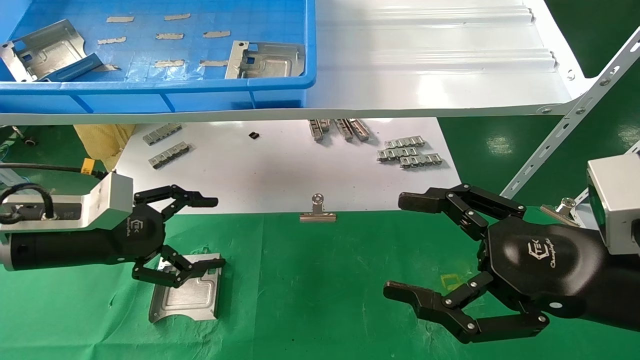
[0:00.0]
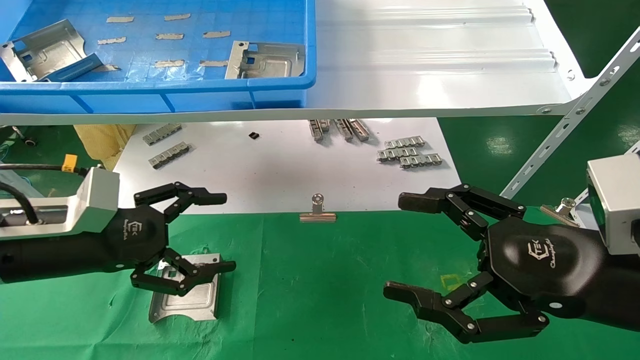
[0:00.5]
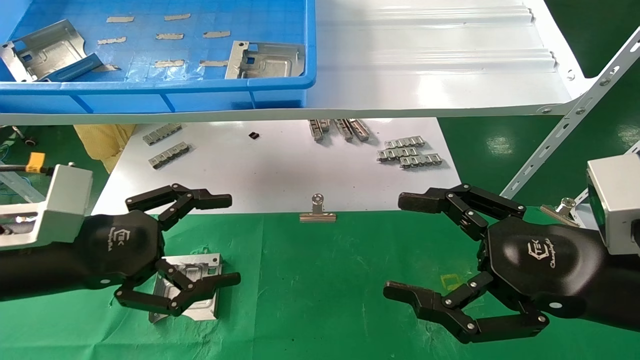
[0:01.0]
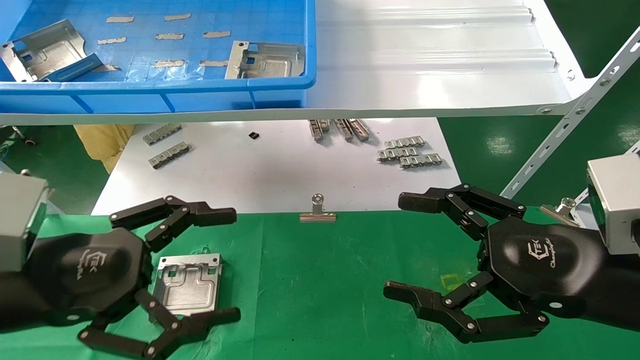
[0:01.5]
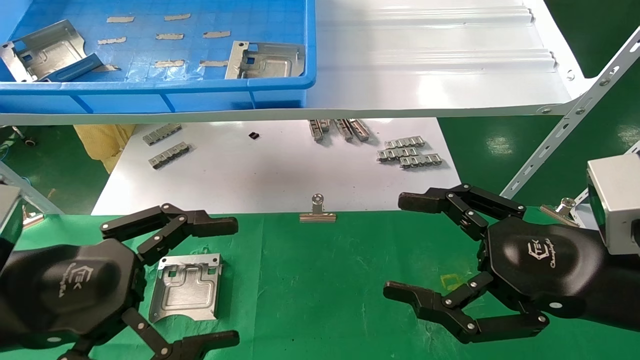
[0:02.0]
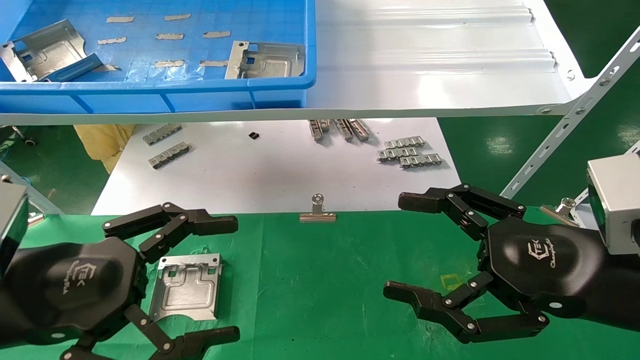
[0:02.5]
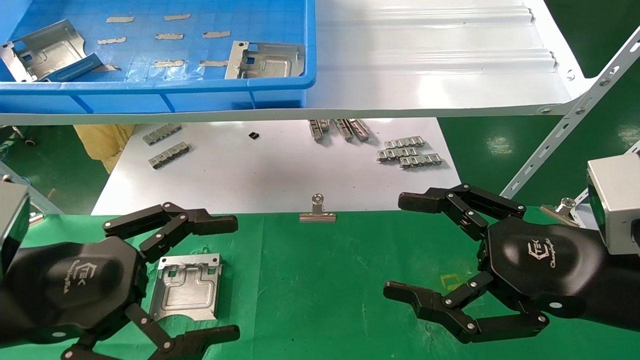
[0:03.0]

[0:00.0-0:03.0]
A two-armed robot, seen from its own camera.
Task of the whole recording: use the mechanical arm to pick up the parts and place them on the table.
0:00.0 to 0:01.5: The left gripper goes about 10 cm backward.
0:01.5 to 0:03.0: The grippers make only small movements.
